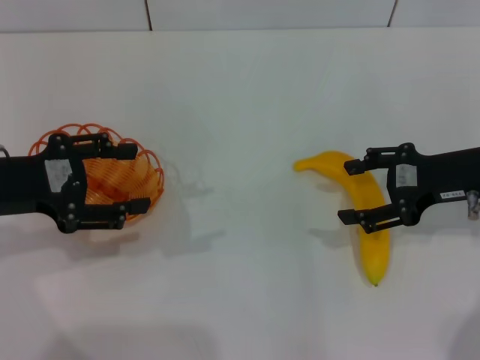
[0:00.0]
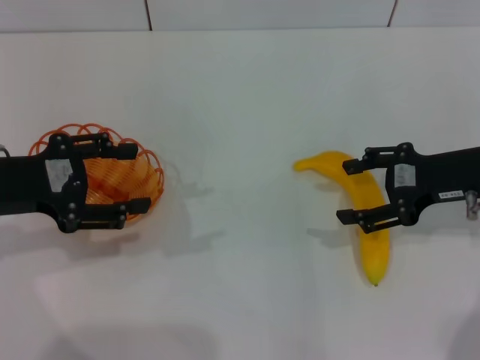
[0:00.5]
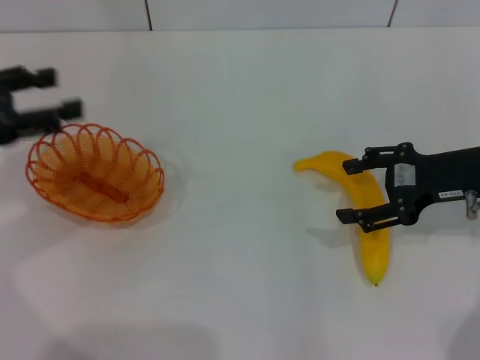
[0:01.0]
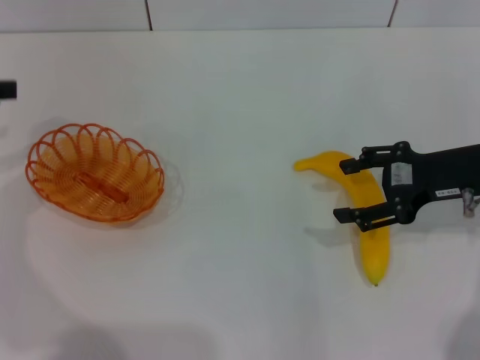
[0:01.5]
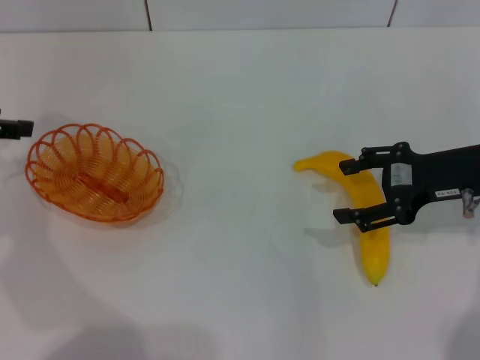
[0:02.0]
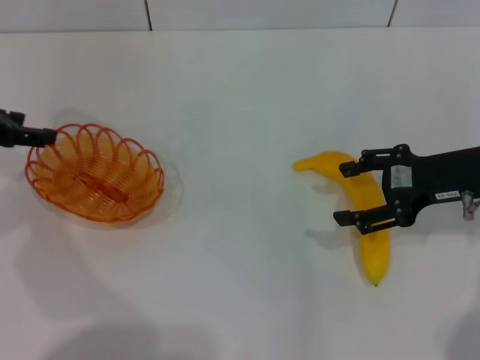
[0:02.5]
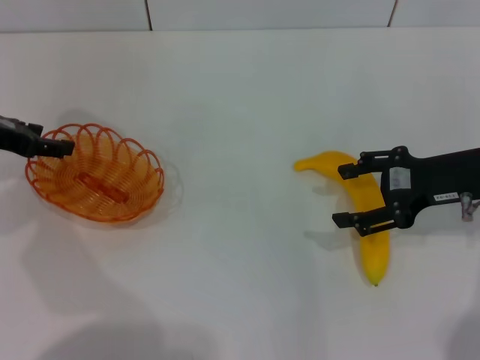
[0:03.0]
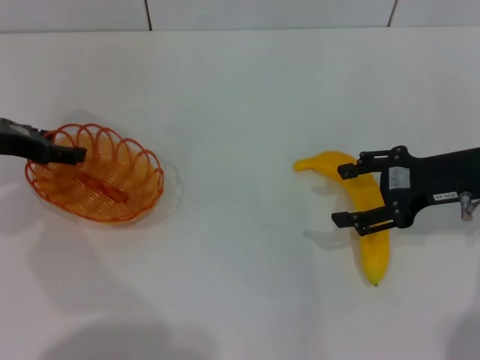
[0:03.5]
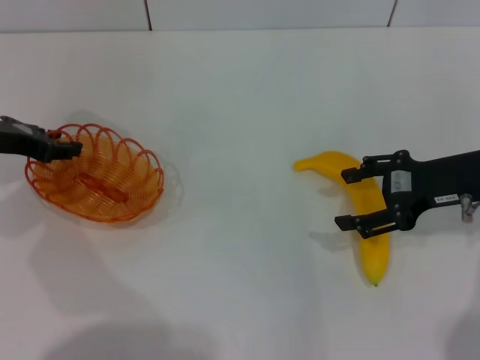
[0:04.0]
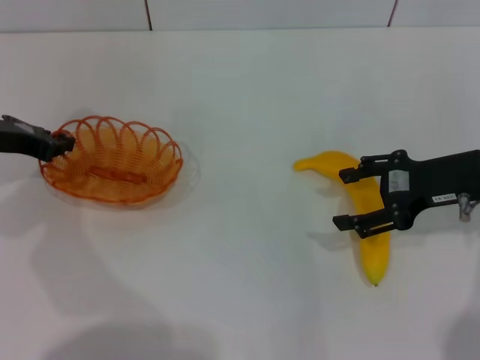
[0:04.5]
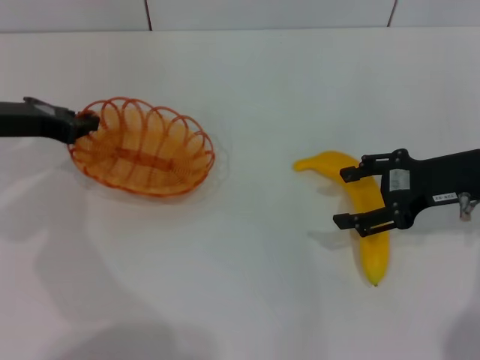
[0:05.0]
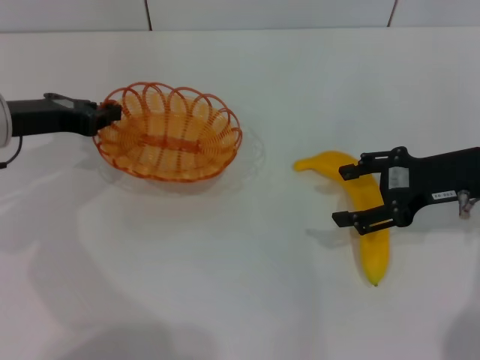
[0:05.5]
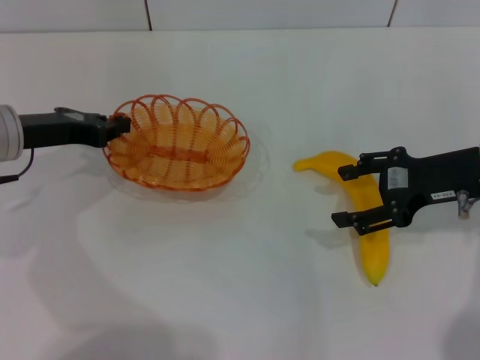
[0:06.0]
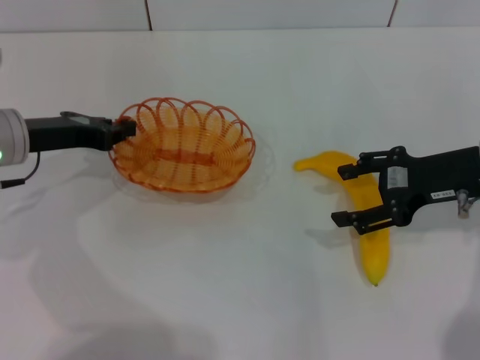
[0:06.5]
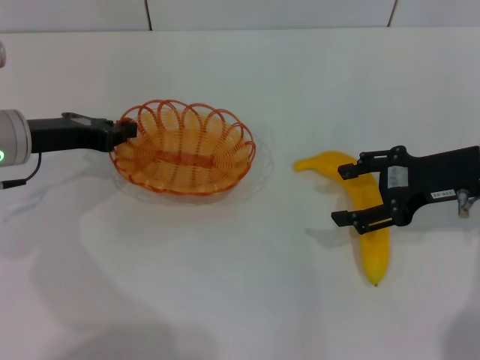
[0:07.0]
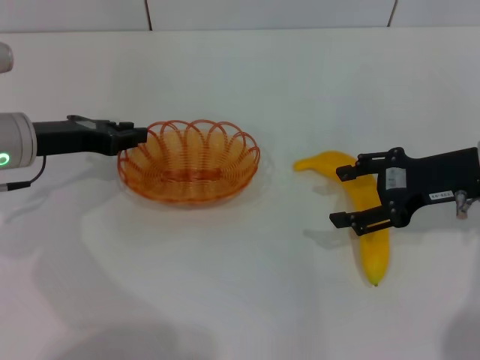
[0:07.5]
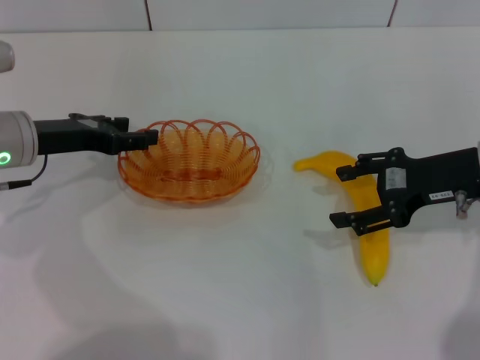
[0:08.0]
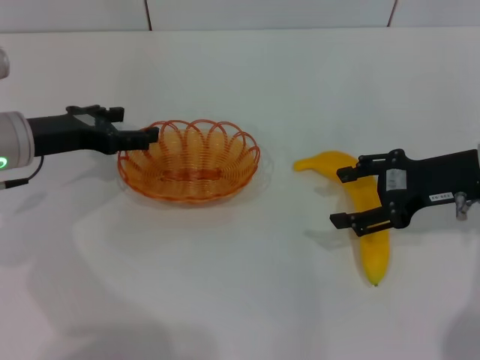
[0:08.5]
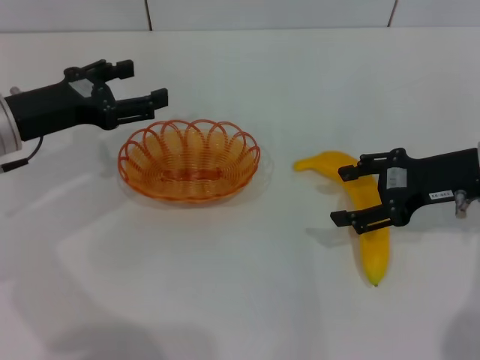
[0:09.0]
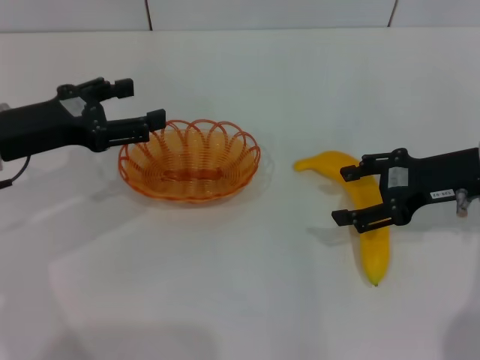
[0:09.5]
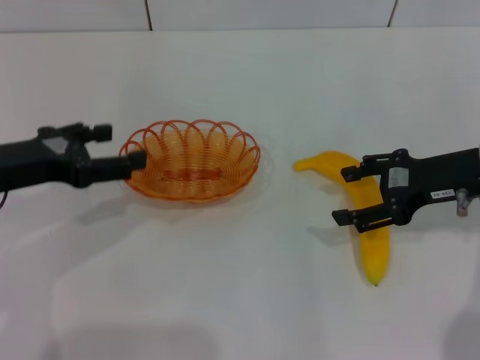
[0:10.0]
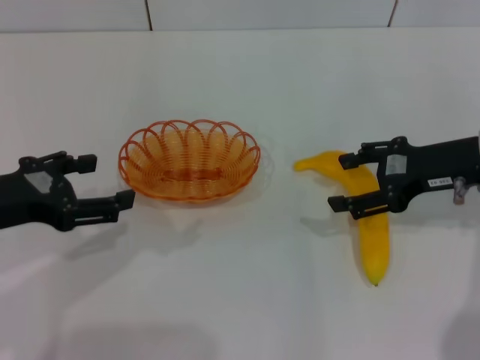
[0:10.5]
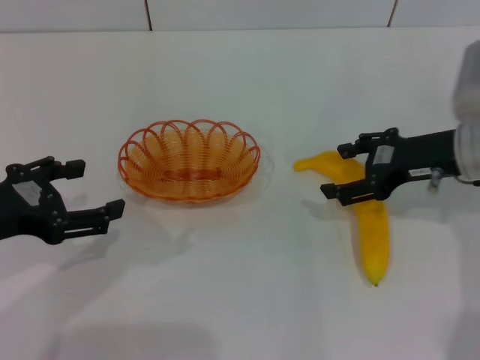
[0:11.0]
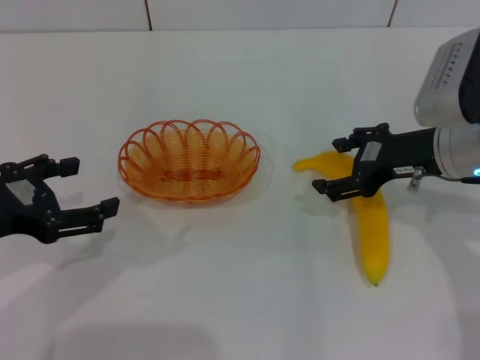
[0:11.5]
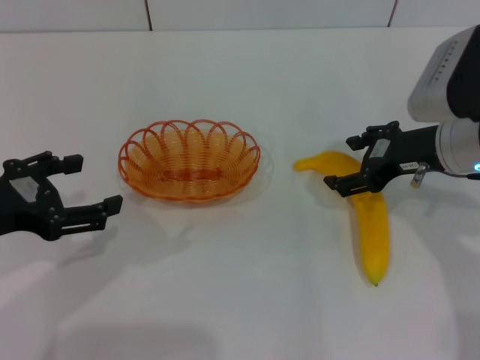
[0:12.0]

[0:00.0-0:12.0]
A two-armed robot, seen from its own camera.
Step, 0:00.0 to 0:05.5: Pick up the basket with the left gripper.
Step, 0:06.0 to 0:09.0: Place the basket in the center of view with the left gripper.
0:00.0 to 0:02.0: The left gripper travels to the left and forward by about 10 cm.
0:02.0 to 0:04.0: The left gripper is displaced downward and to the right by about 5 cm.
0:04.0 to 0:06.0: The left gripper closes its fingers.
0:06.0 to 0:08.0: The left gripper opens up.
0:08.0 to 0:10.0: The left gripper is displaced backward by roughly 10 cm, and opens its fingers.
0:10.0 to 0:12.0: The left gripper goes approximately 5 cm backward.

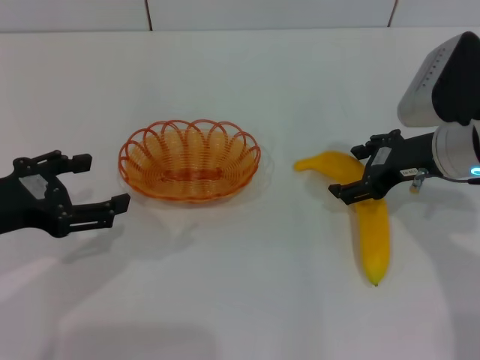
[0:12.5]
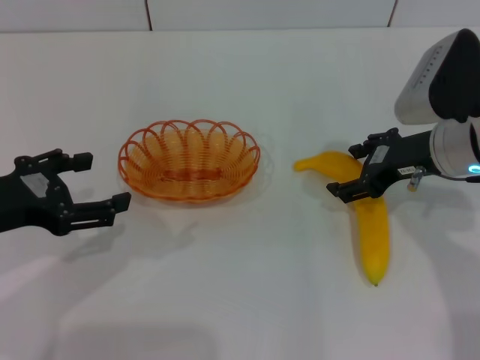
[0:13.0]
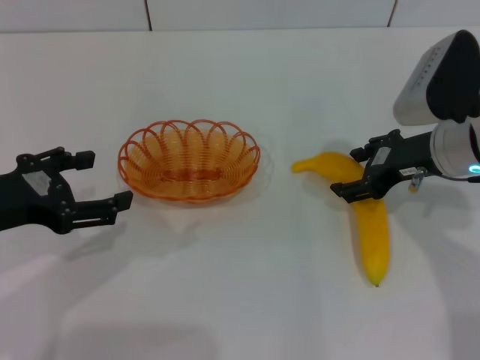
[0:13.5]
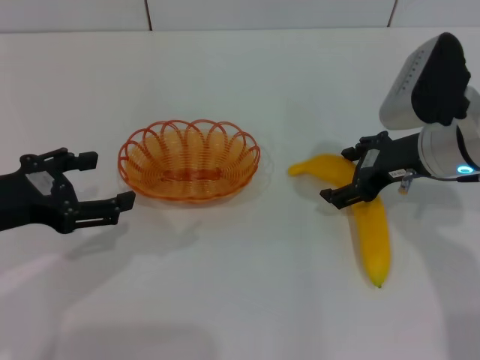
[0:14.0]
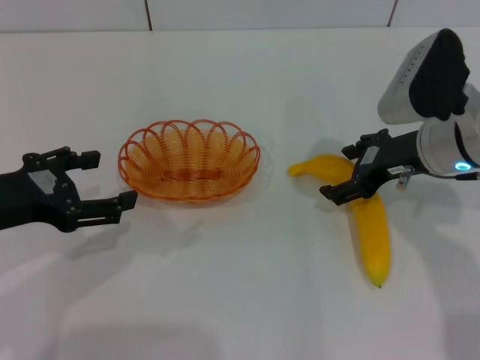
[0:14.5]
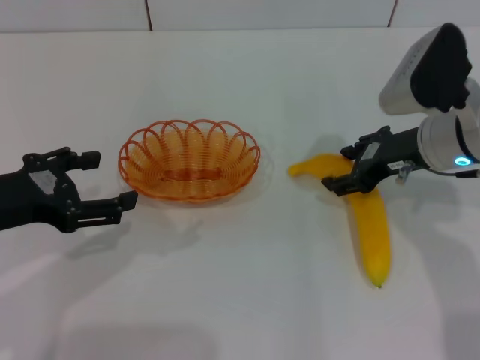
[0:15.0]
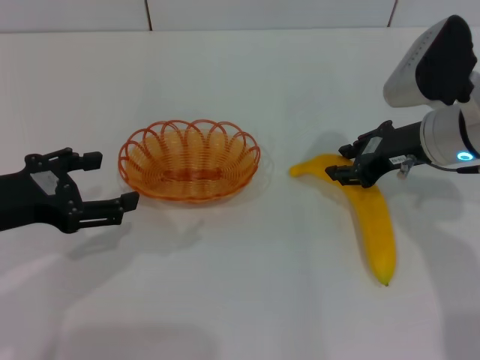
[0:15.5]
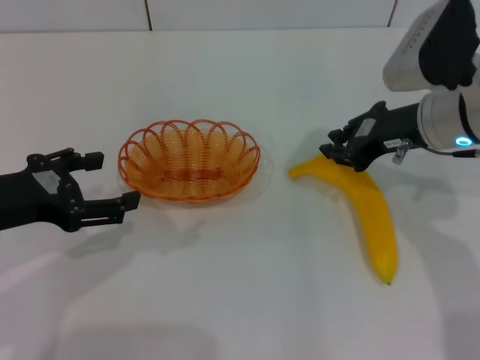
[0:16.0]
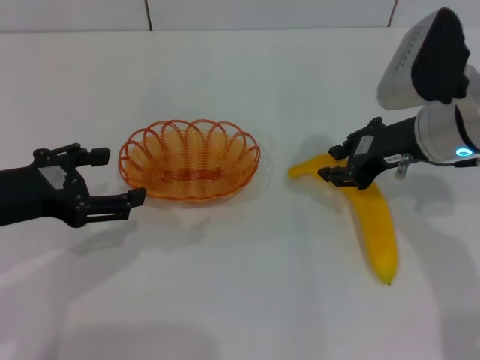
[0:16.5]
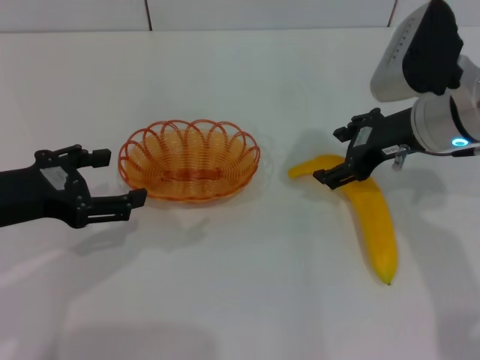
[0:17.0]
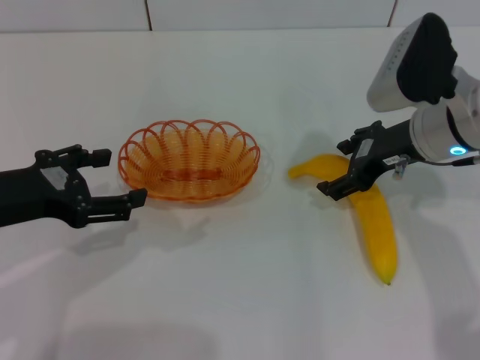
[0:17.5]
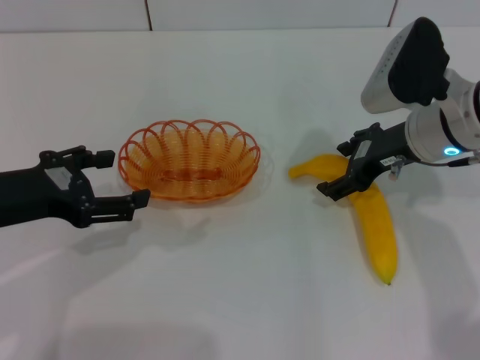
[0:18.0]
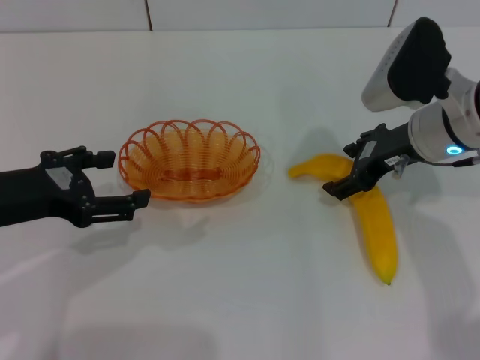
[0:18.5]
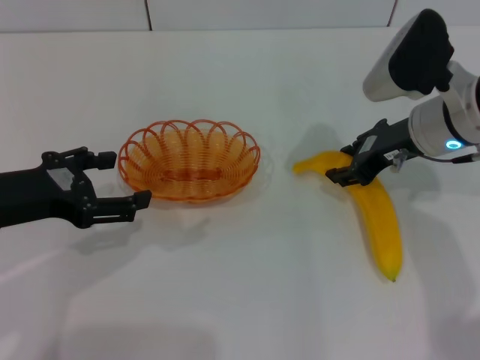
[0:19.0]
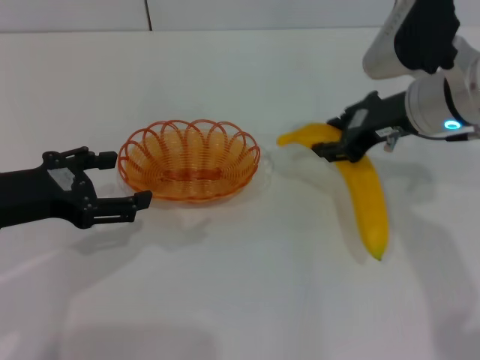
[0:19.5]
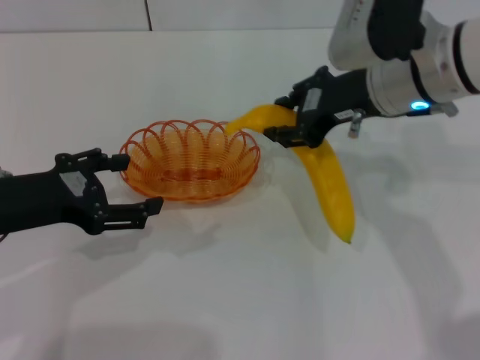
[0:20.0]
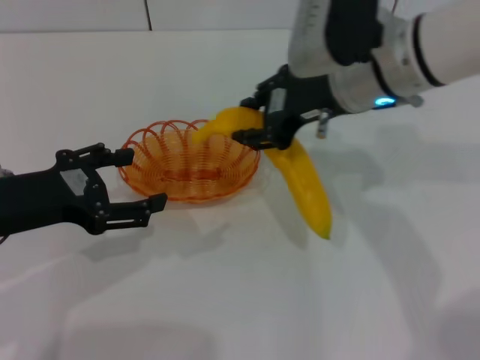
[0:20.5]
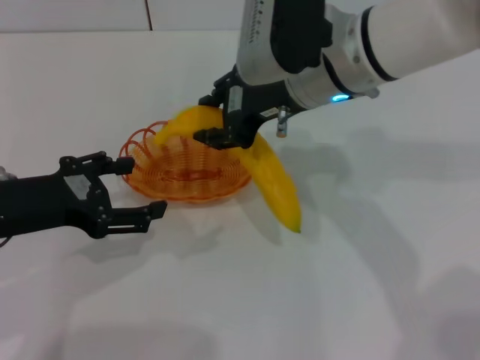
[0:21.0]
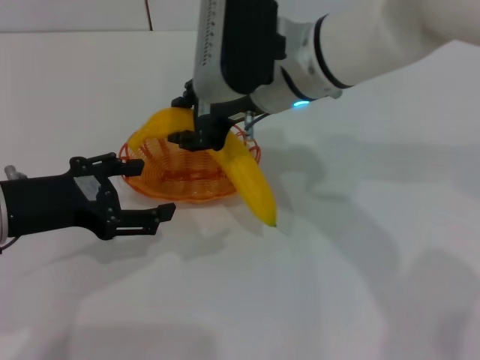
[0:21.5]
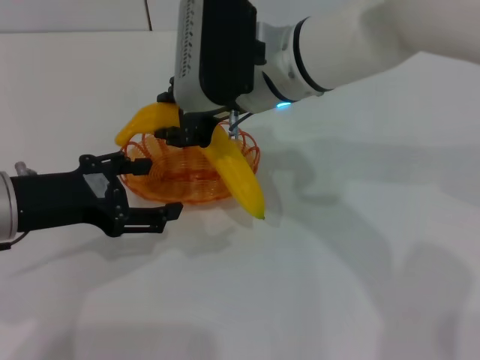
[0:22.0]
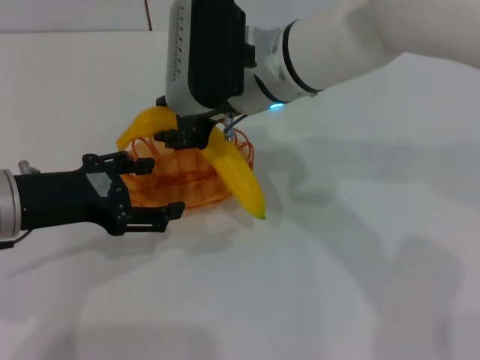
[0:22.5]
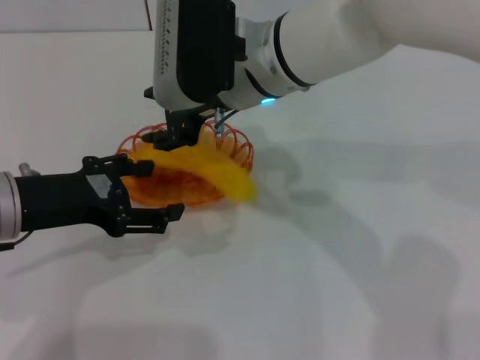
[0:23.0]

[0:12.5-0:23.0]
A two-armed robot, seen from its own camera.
Step, 0:12.5 to 0:20.0: Pick up the banana with the right gripper.
0:12.5 to 0:14.5: The grippers make only small movements.
0:14.5 to 0:16.5: The right gripper closes its fingers.
0:16.5 to 0:19.0: The right gripper opens, then closes once more.
0:19.0 to 0:21.0: The right gripper shifts some 15 cm to the left and upward.
0:21.0 to 0:23.0: The right gripper heads to the left, covering roughly 5 cm.

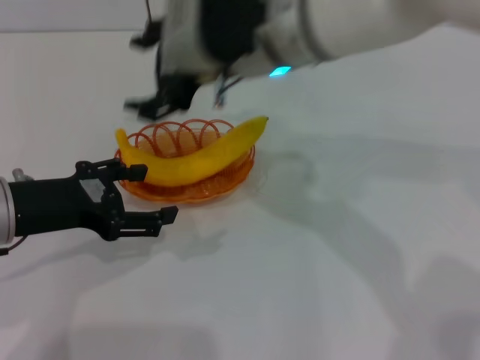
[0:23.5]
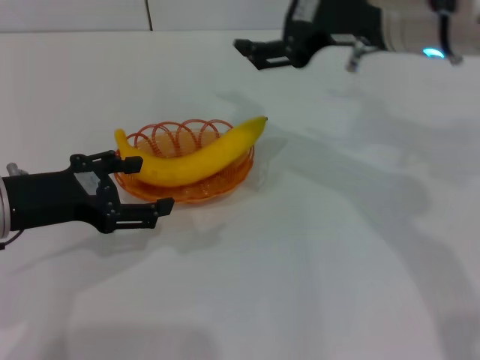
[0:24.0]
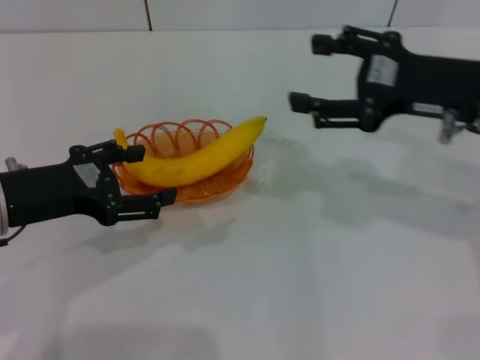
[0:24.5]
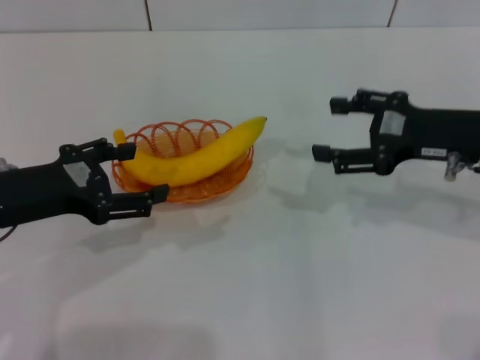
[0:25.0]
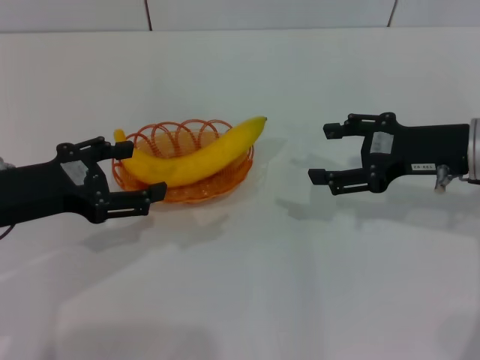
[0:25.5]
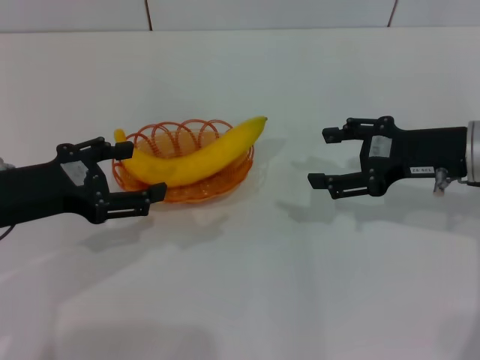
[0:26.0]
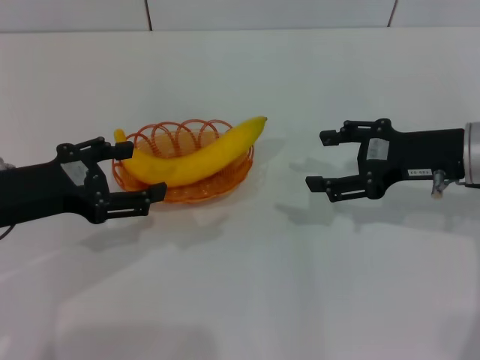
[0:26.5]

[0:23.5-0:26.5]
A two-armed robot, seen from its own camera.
0:23.5 to 0:25.0: The right gripper goes some 25 cm to the right and downward.
0:25.0 to 0:26.5: The grippers stay close to where they were, moving slightly.
